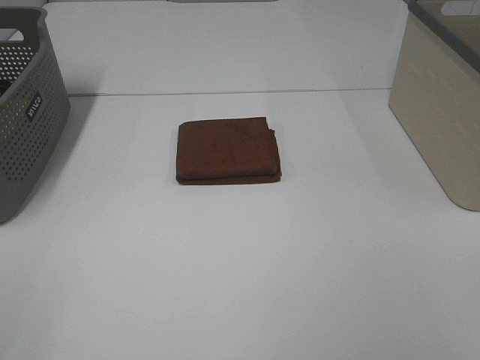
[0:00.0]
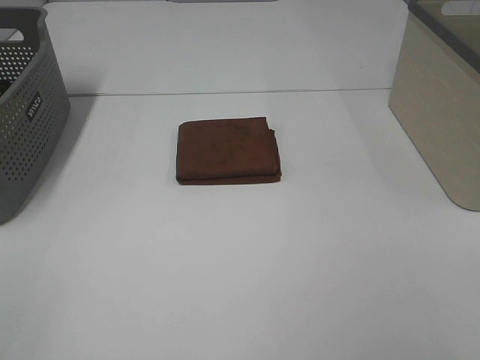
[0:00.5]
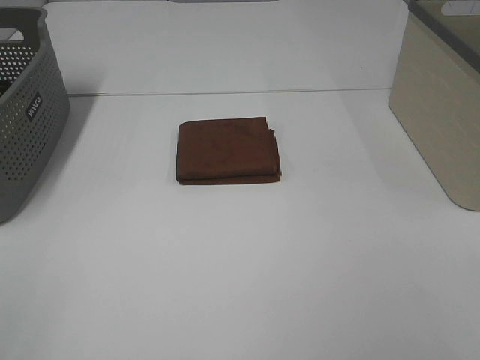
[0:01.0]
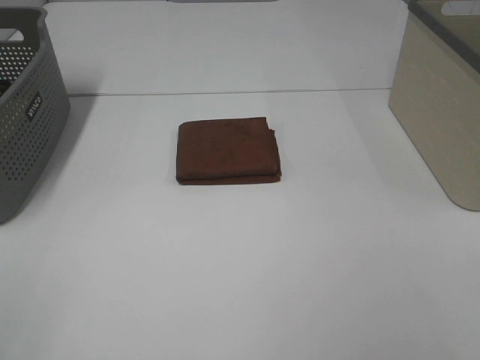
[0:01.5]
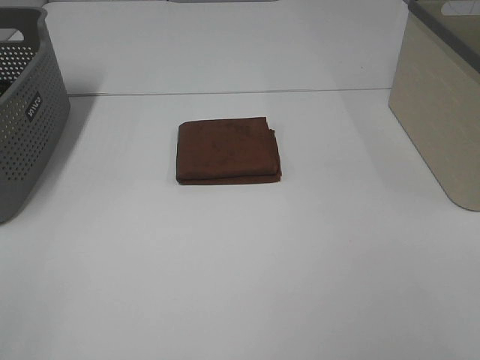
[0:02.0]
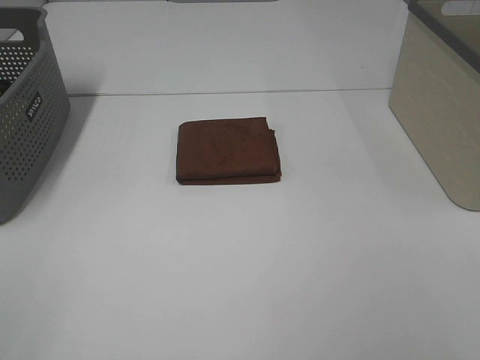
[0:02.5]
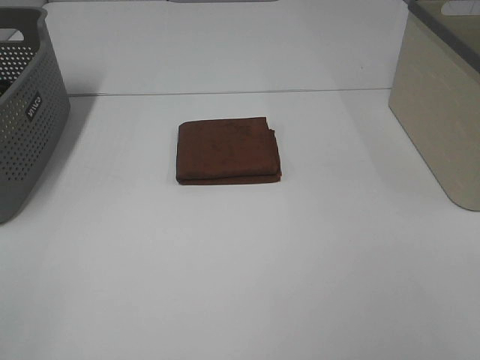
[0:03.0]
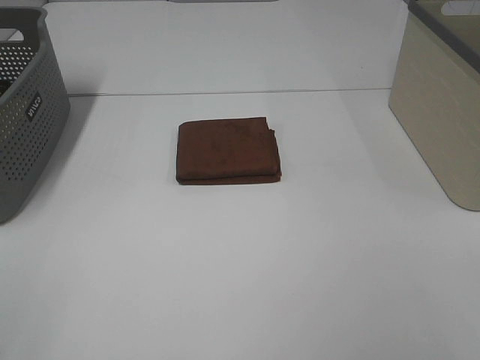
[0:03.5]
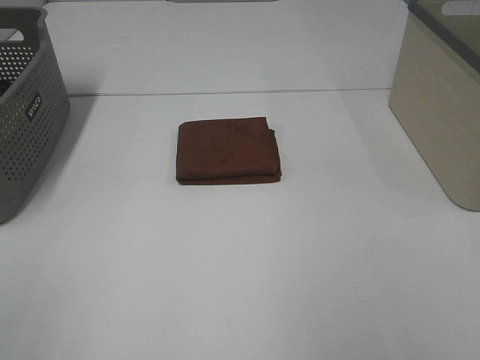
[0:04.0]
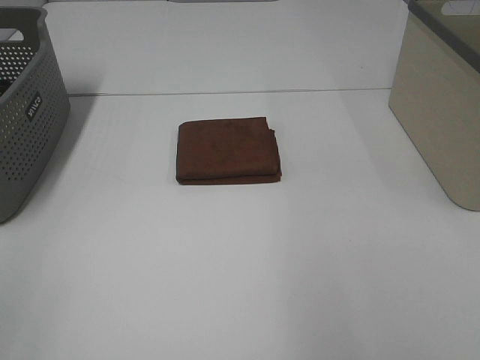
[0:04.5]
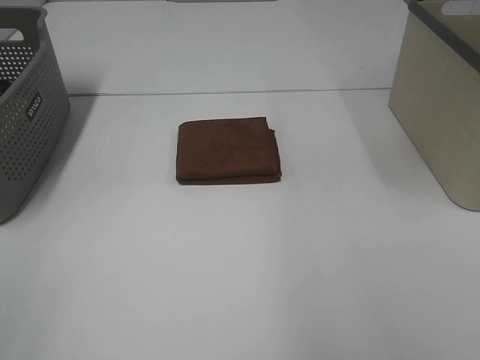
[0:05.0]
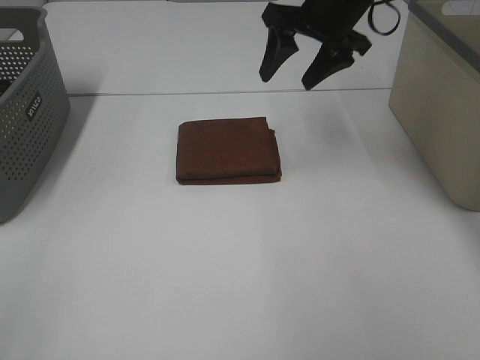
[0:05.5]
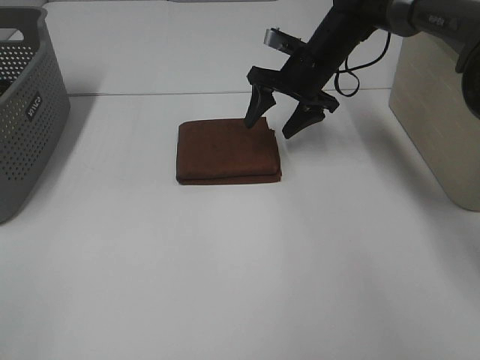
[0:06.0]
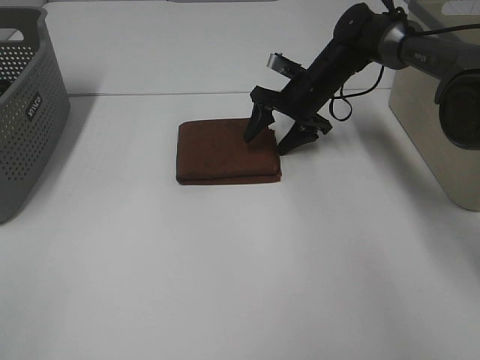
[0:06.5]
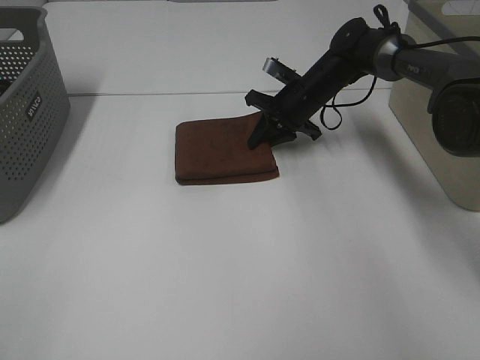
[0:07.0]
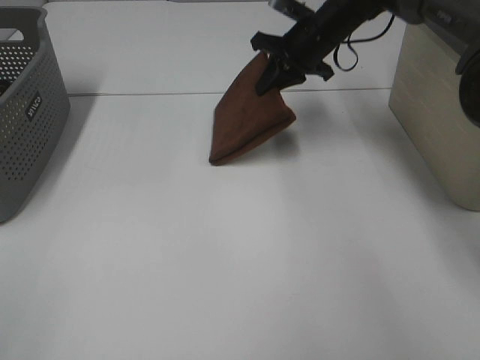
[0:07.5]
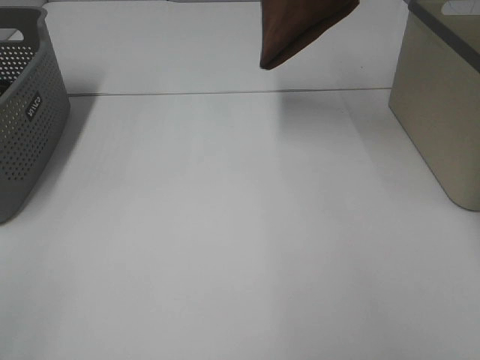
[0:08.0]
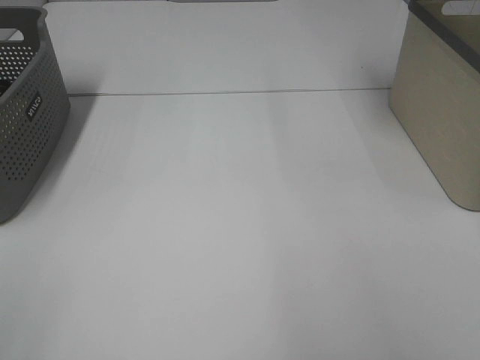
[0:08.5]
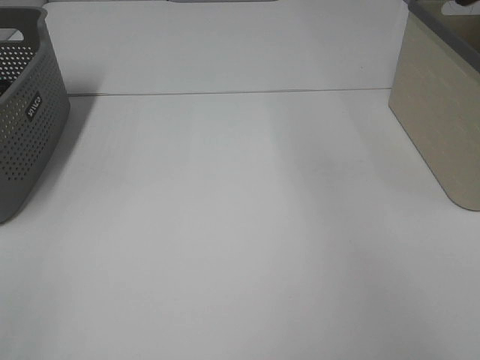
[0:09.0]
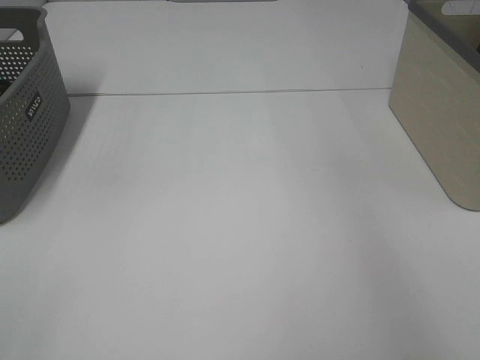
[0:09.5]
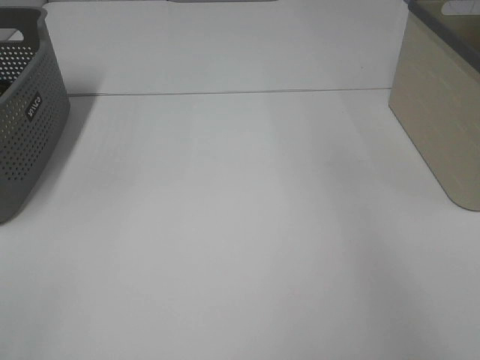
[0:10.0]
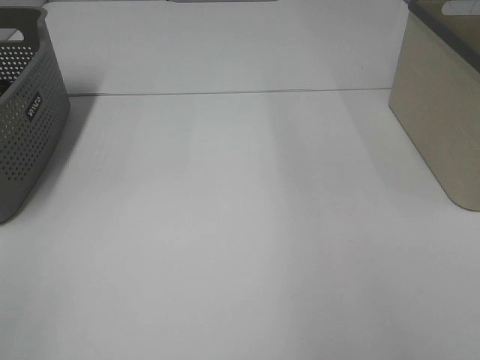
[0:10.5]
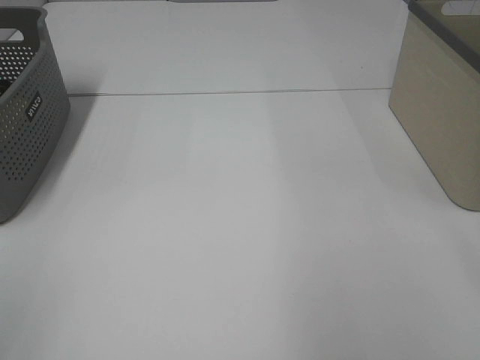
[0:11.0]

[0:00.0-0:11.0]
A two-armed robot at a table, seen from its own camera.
Step, 0:00.0 to 0:07.0: Right hand: grab the folded brown towel.
Step, 0:07.5 to 0:09.5: Right hand: place the brown towel in right basket.
0:00.0 to 0:03.5: Both grippers stay about where they are.
0:03.5 to 0:05.5: The right gripper travels forward by approximately 40 cm.
0:05.5 to 0:07.5: The right gripper shifts roughly 5 cm forward, goes downward and returns, about 15 cm each way, and closes its fingers.
0:07.5 to 0:09.0: The right gripper goes about 35 cm upward and to the right.

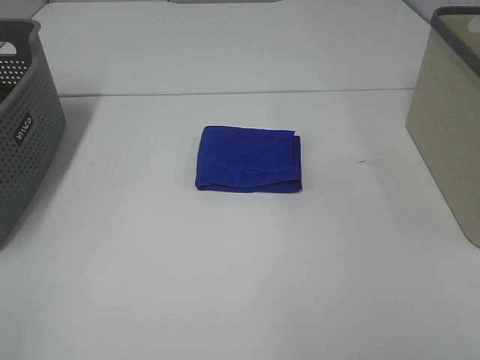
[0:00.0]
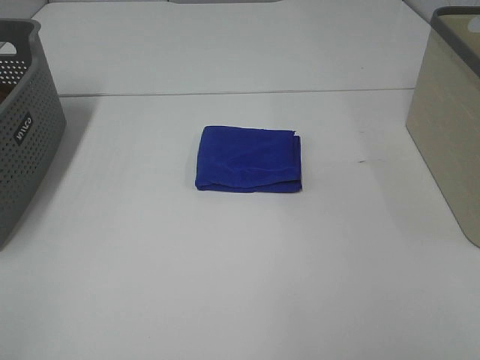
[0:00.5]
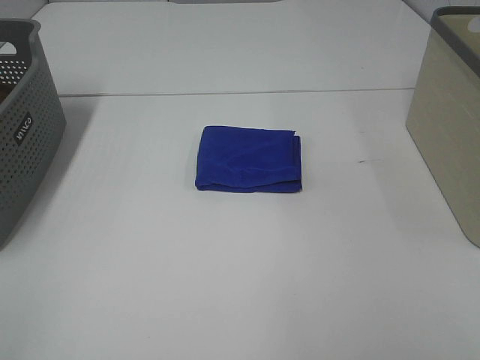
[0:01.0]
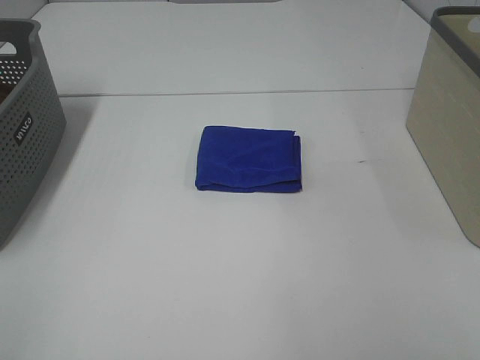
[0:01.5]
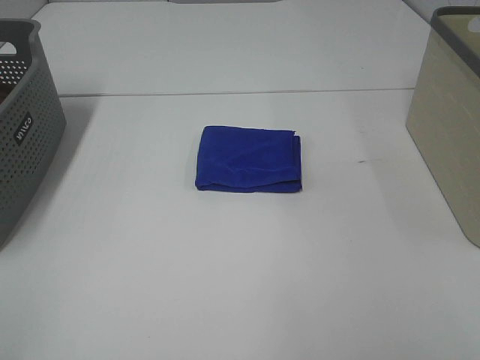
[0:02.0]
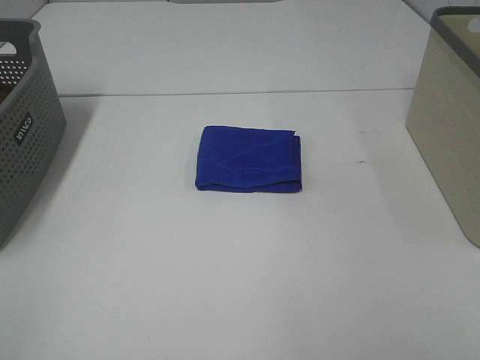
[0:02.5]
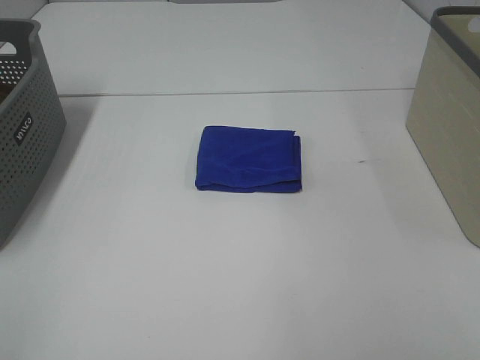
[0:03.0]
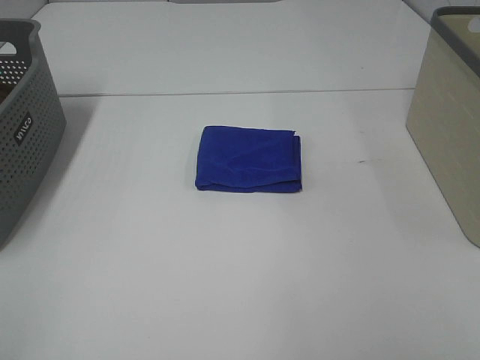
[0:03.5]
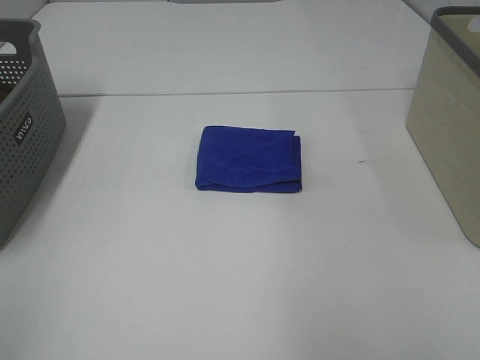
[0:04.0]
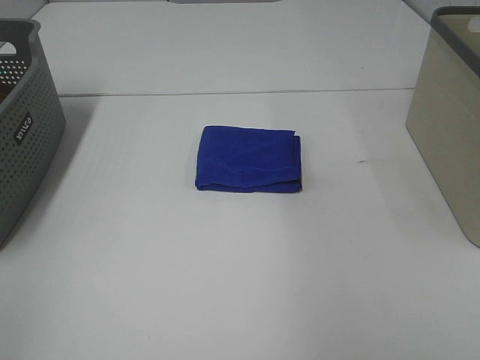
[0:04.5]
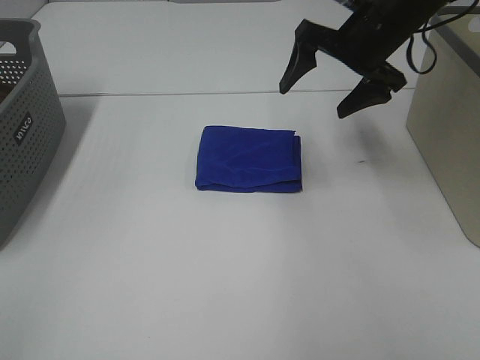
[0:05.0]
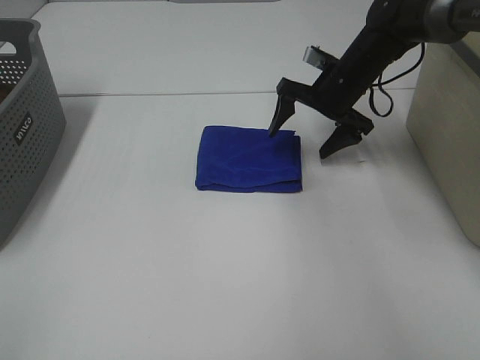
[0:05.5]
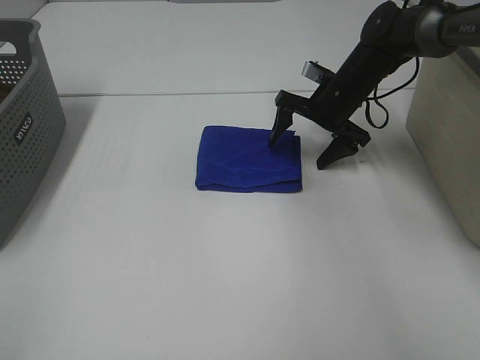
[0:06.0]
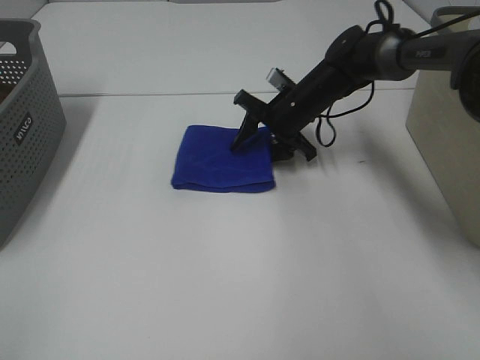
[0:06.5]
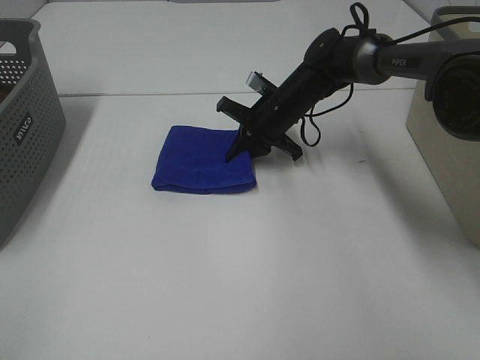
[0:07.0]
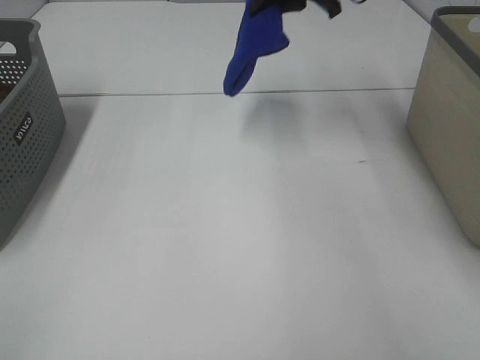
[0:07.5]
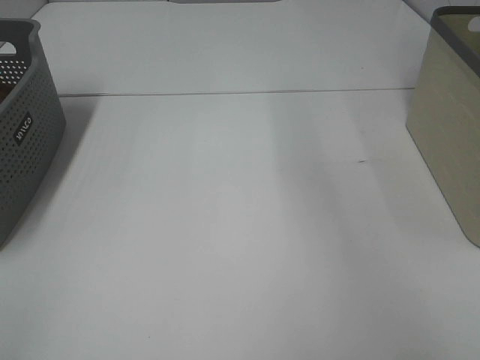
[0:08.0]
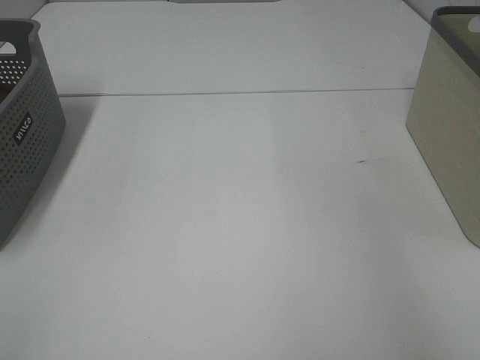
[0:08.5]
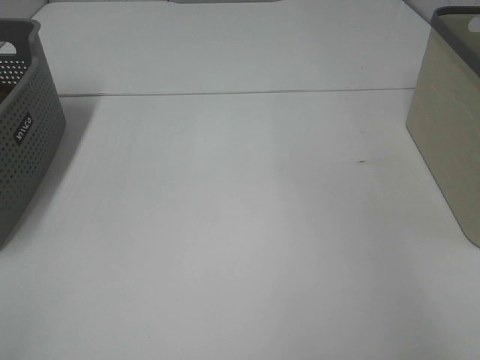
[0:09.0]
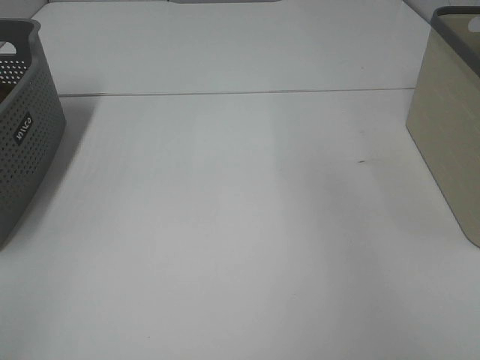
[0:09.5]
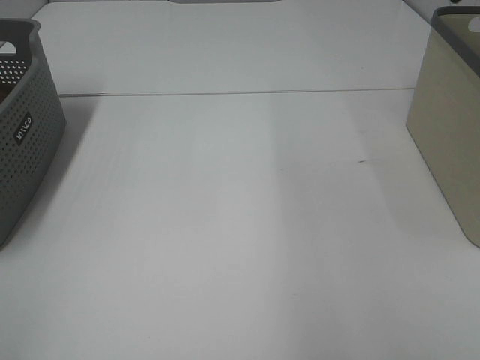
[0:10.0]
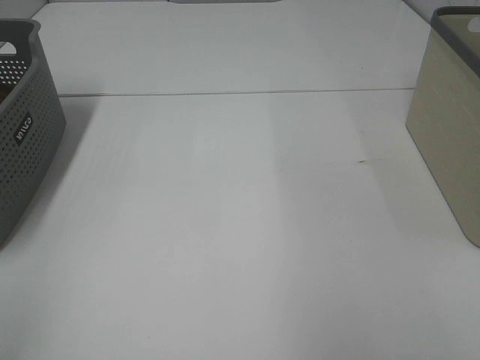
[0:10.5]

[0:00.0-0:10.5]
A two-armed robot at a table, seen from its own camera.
Step, 0:00.0 to 0:06.5: Right hand: grab the folded blue towel.
Step, 0:07.0 to 0:09.0: Right hand: place the blue towel in right basket.
0:00.0 to 0:02.0: Neither gripper changes place.
0:04.0 to 0:06.5: The right gripper is displaced forward, downward and to the left by about 50 cm, and closes its fingers.
0:06.5 to 0:08.5: The right gripper heads to the right and upward, covering approximately 40 cm, and closes.

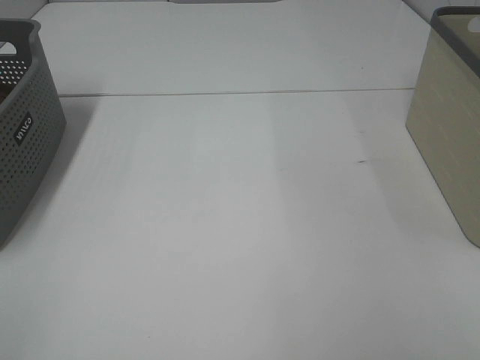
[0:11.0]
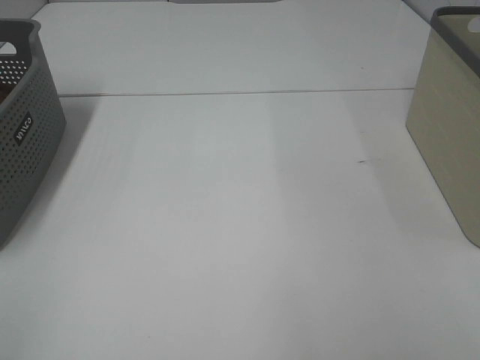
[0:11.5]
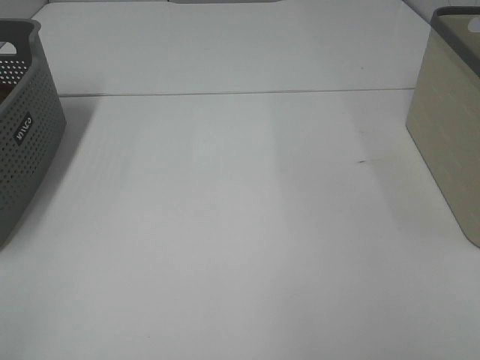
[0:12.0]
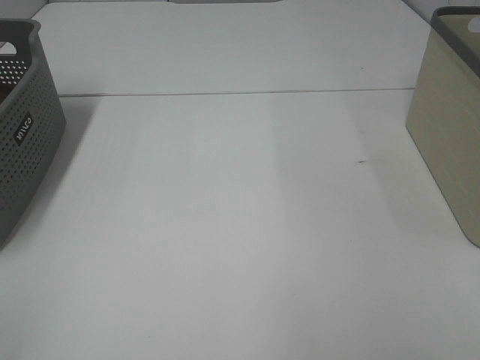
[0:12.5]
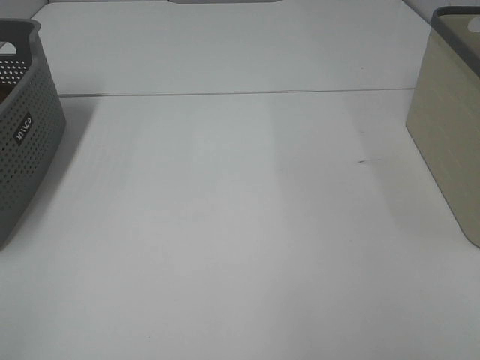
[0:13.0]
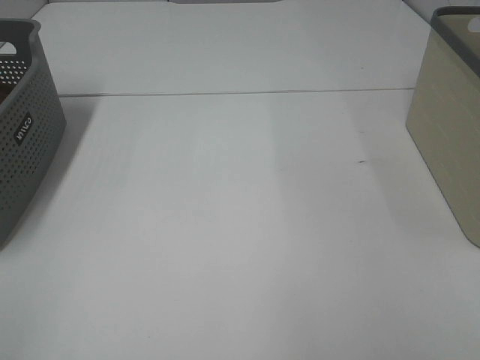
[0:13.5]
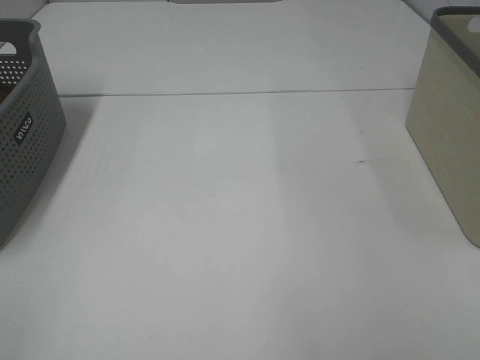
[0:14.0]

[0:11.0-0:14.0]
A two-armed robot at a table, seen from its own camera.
0:12.5 to 0:14.0: Neither gripper changes place.

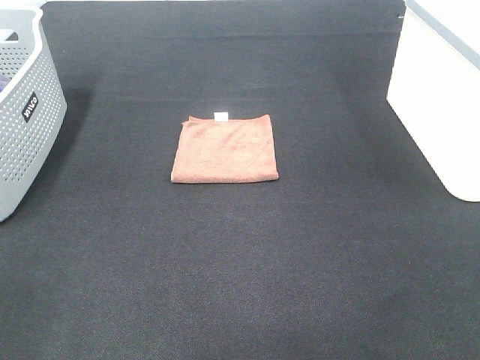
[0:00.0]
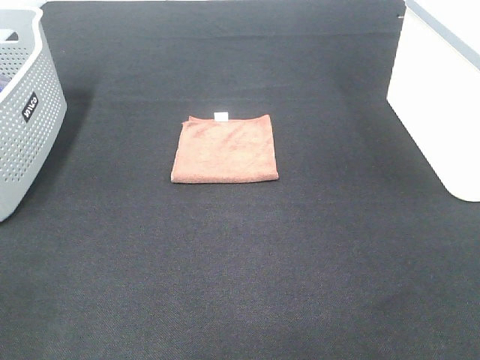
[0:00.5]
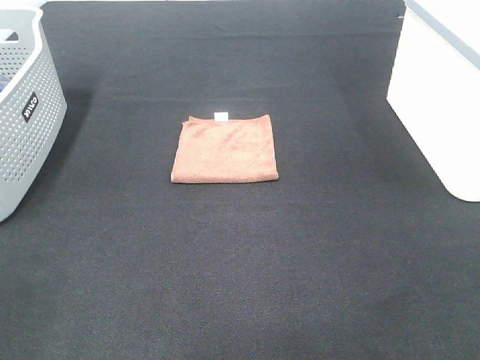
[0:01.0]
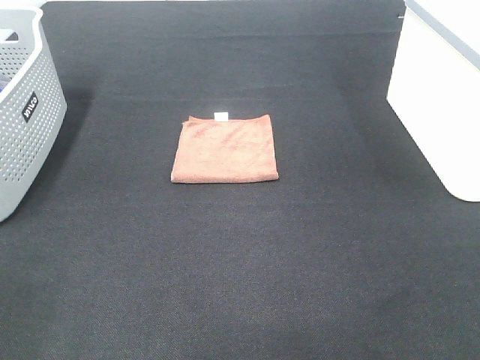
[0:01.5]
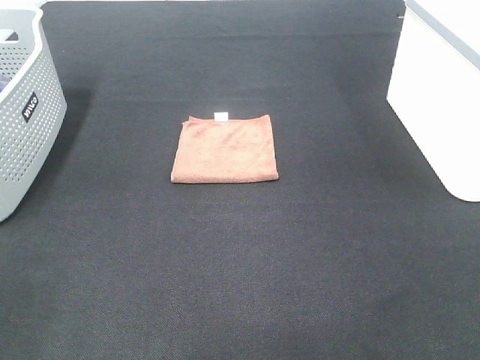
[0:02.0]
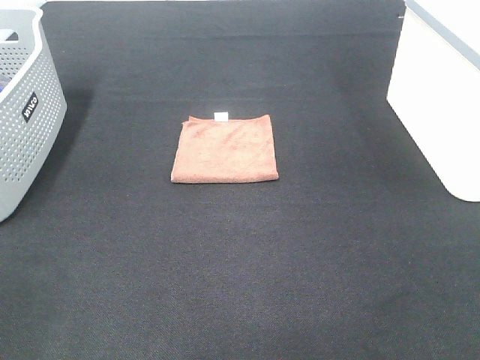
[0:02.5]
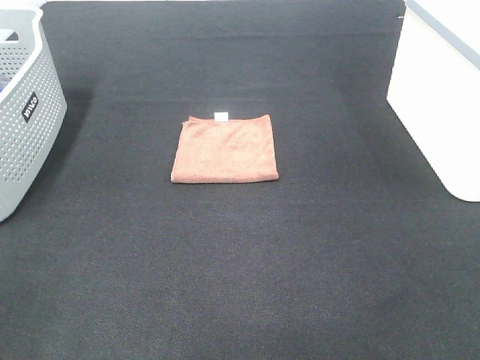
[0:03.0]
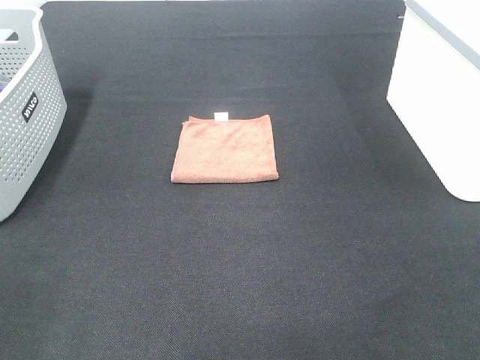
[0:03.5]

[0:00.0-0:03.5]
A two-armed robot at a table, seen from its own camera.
0:00.0 to 0:03.5: Both grippers stay put.
